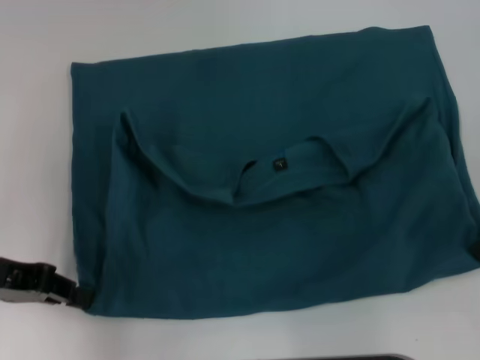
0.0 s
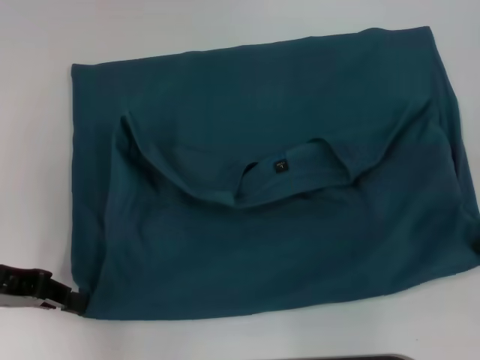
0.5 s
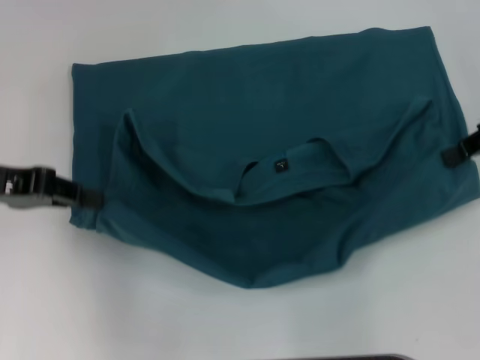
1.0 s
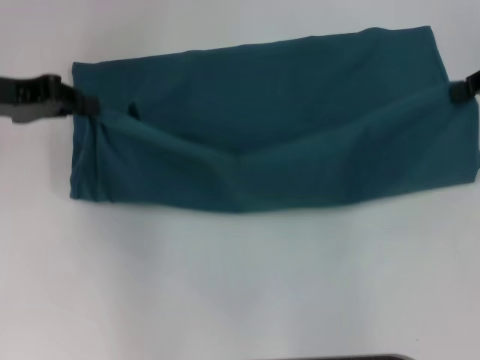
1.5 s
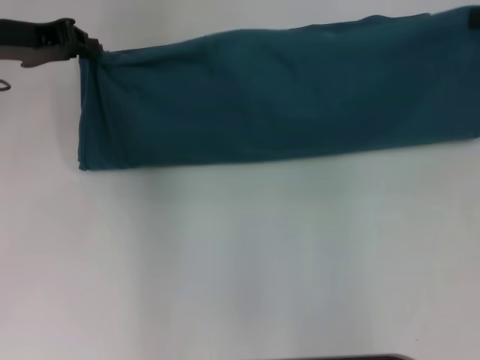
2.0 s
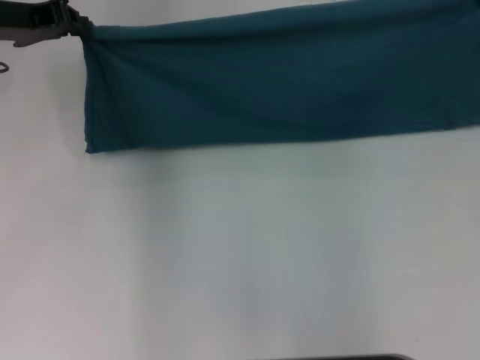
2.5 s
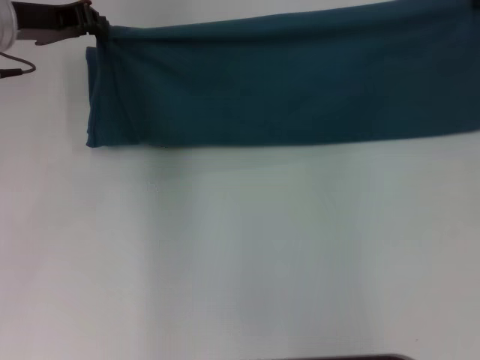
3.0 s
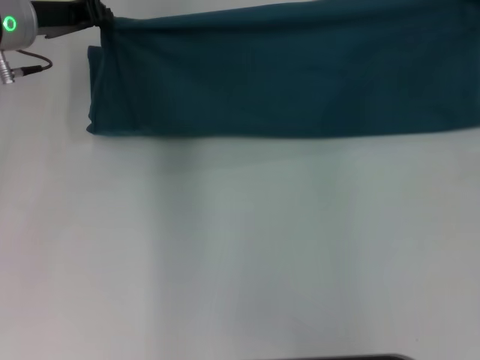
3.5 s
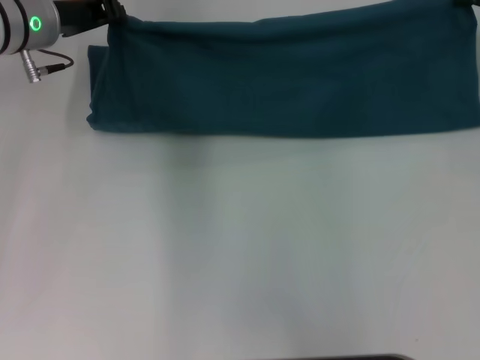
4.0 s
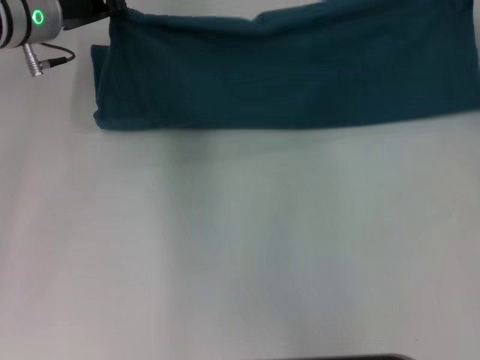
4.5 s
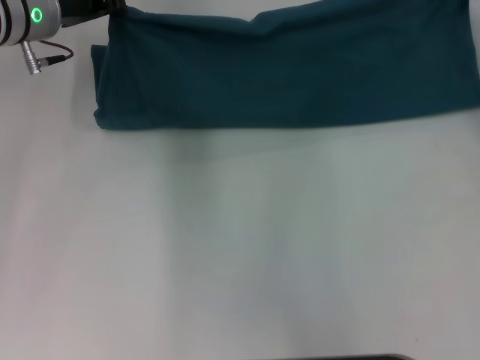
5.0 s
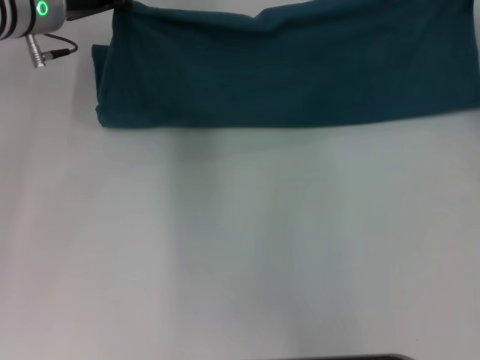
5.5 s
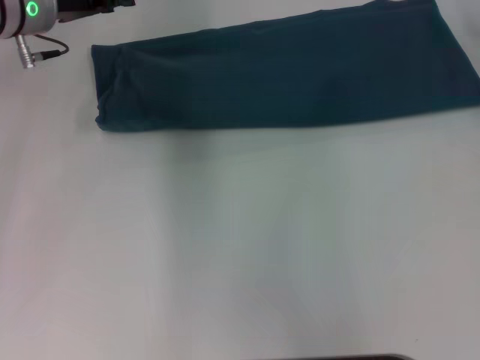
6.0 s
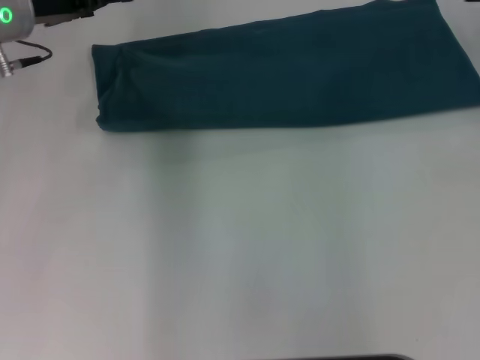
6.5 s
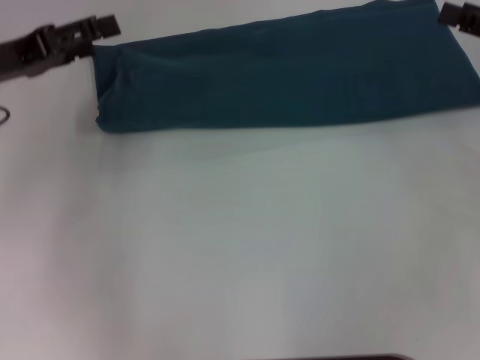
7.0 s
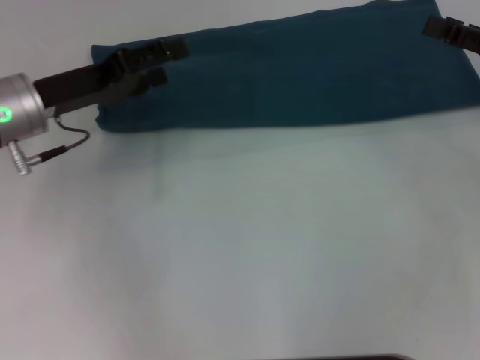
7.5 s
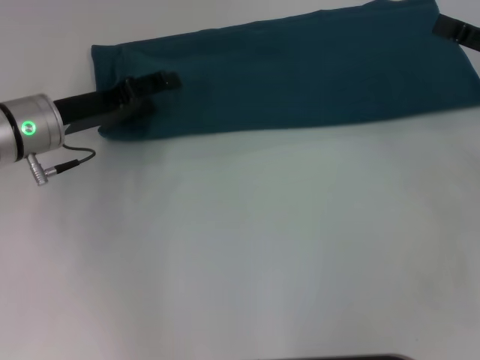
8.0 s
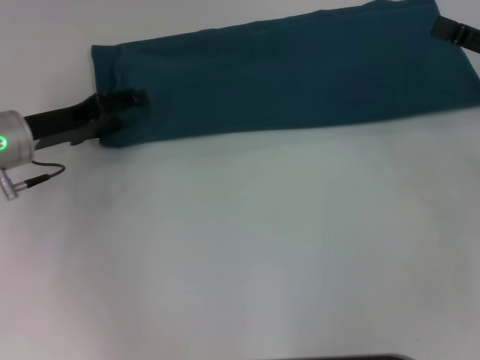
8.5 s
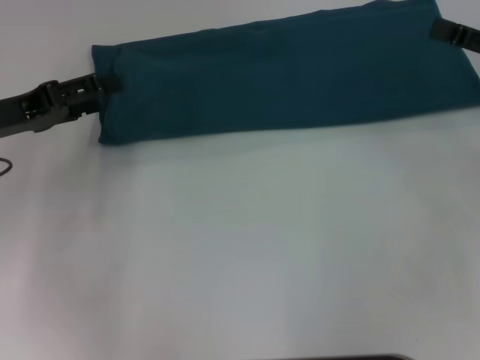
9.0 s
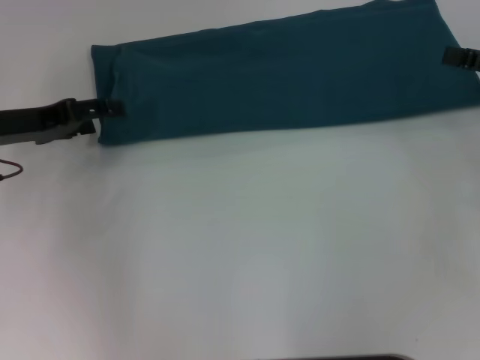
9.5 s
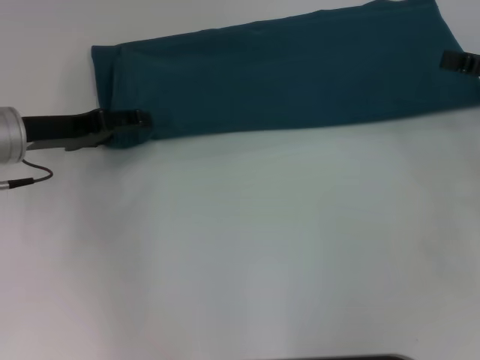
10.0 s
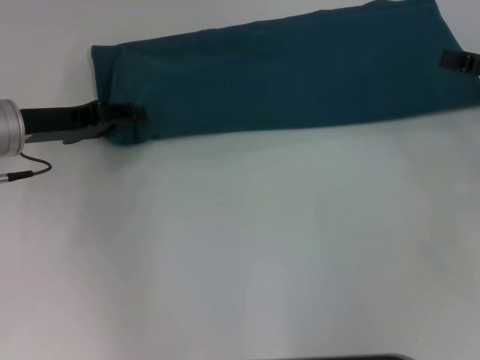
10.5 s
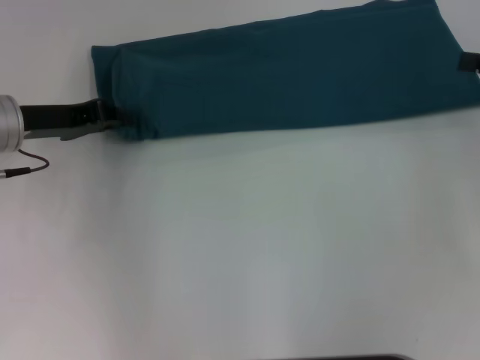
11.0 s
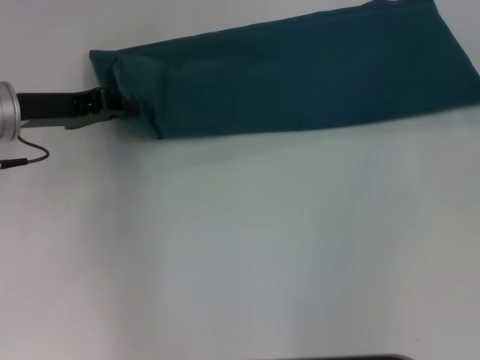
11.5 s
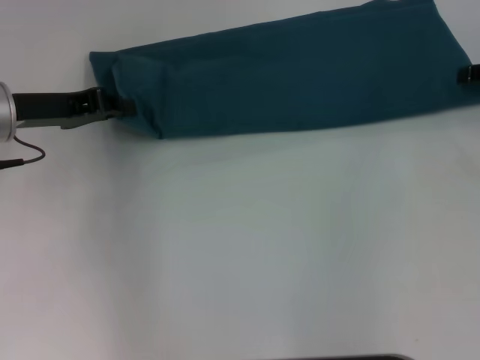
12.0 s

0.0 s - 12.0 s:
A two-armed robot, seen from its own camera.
Step, 0.5 s - 5.5 s: Fold the clothes to the left.
Step, 0.5 s - 5.5 s: Fold the clothes to the right.
0.0 s - 2.0 s: The grippers both shift forward and upward by about 15 cm.
2.0 s - 4.0 s: The right gripper goes some 5 cm downward. Meanwhile the left gripper heads to the right, covering some 5 cm.
4.0 s - 6.0 s: The grippers make only small movements.
6.0 s - 8.0 s: The left gripper is displaced backward and downward by roughly 10 cm, and opens its fingers. Meanwhile the right gripper is displaced backward by approximately 15 cm, and opens.
10.0 s - 12.0 s: The right gripper moves forward, approximately 5 cm. The left gripper closes.

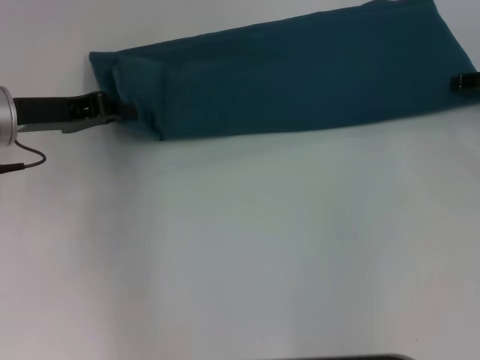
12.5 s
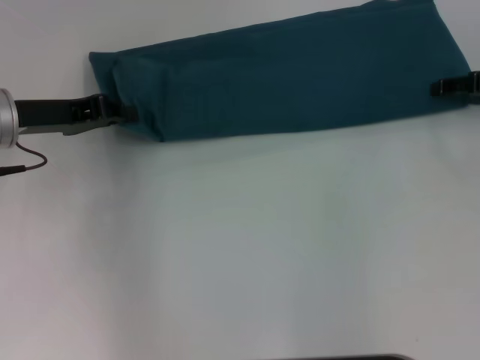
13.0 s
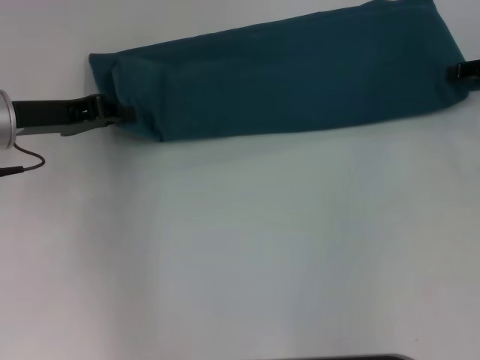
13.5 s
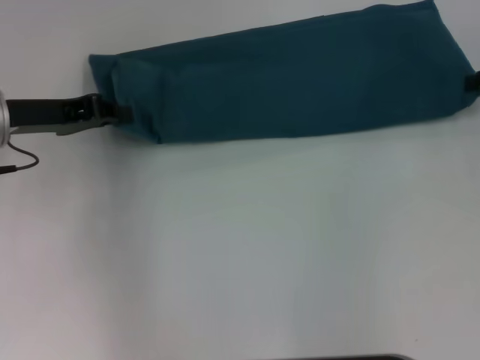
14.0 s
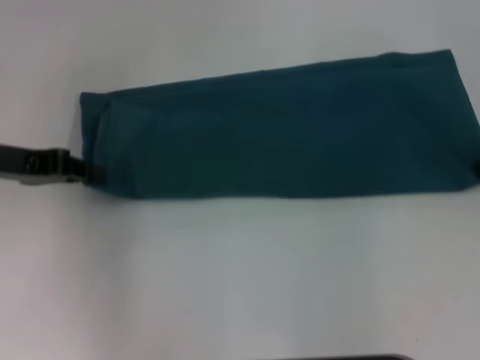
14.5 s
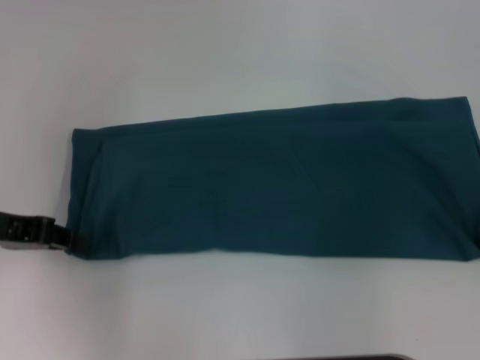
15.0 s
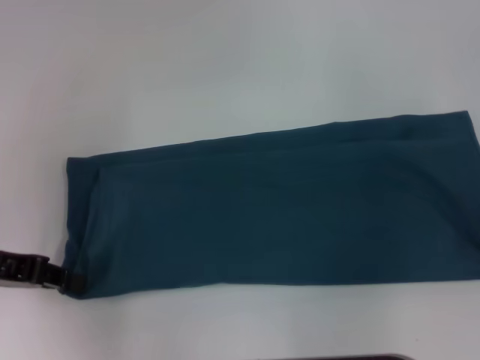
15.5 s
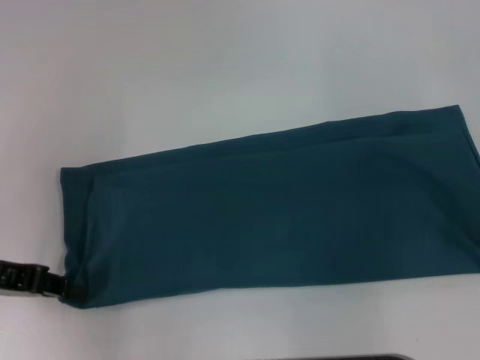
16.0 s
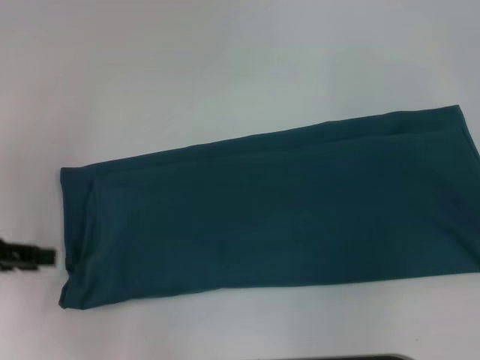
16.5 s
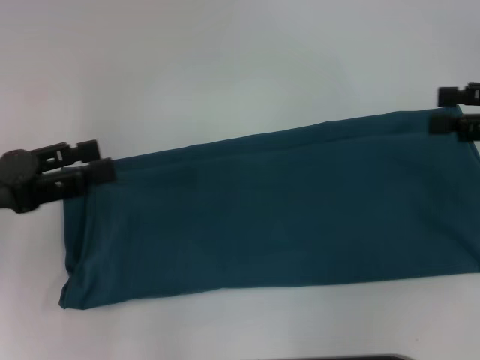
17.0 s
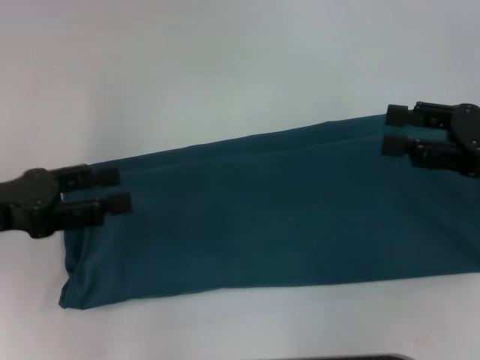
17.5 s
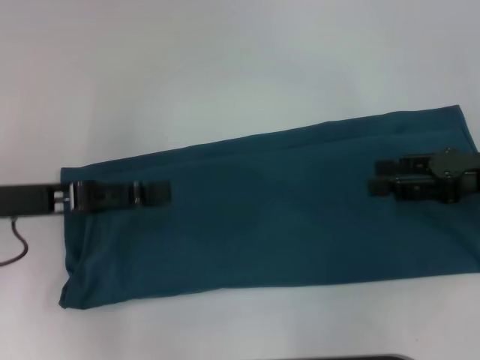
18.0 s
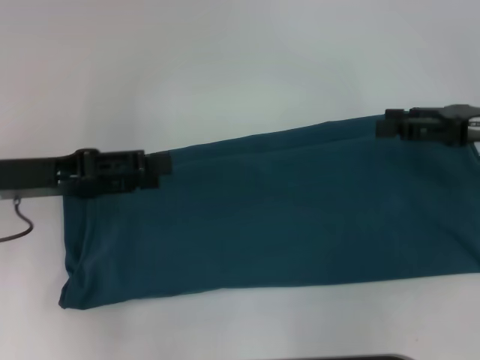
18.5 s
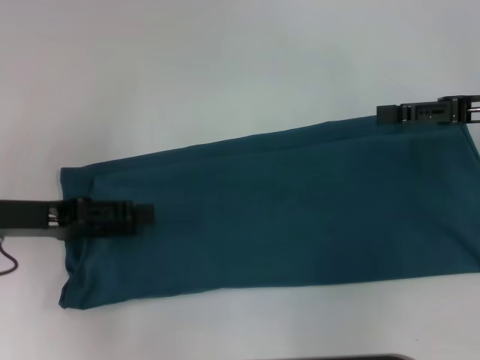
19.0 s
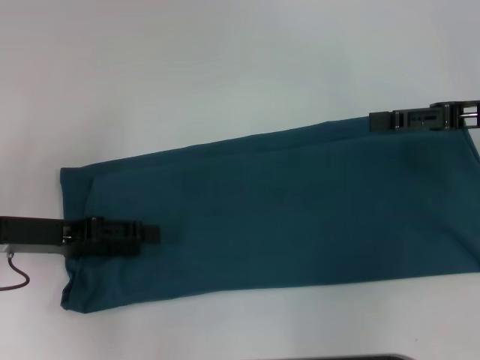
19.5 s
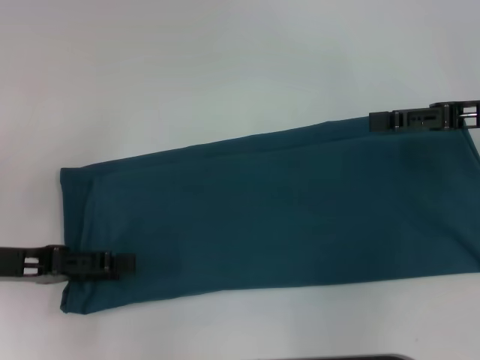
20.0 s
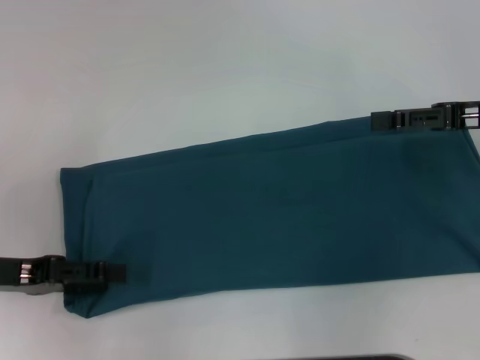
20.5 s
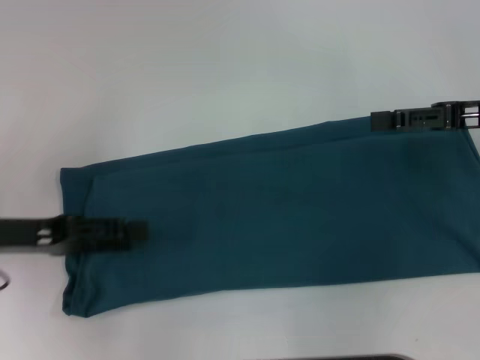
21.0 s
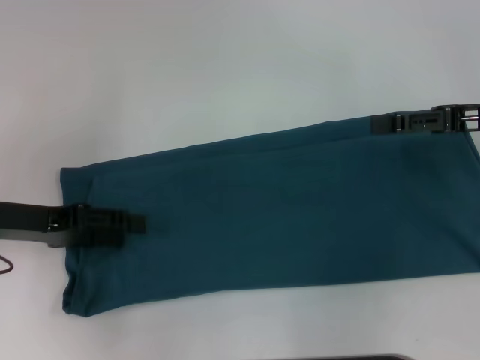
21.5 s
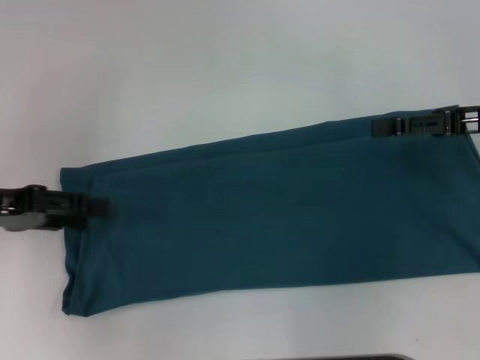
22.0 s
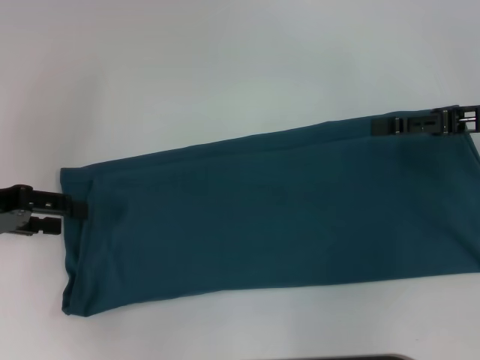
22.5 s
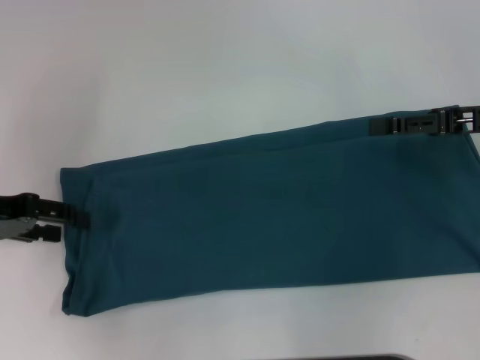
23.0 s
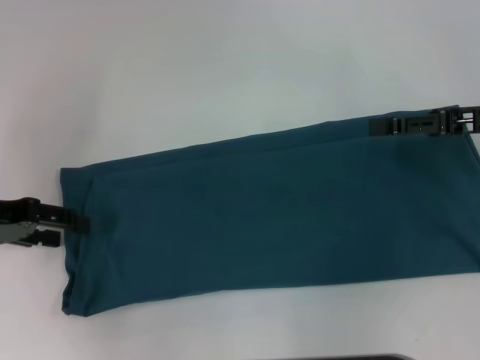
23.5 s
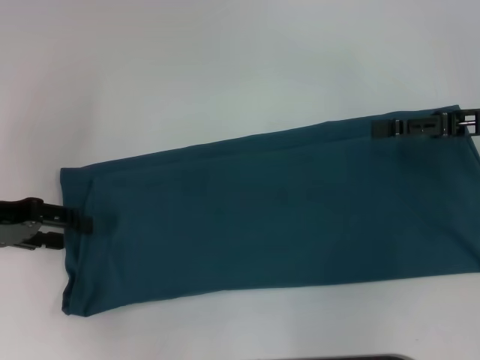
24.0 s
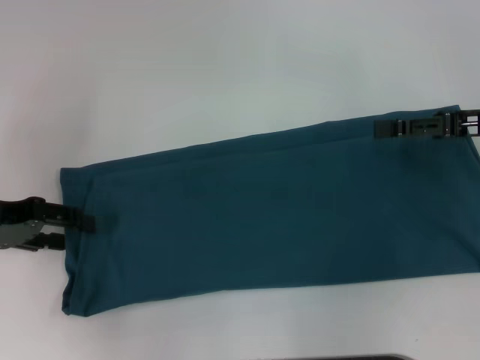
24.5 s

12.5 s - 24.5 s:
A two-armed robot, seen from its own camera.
Step, 12.5 s - 16.0 s: Pull the clothes with your left hand.
Step, 12.5 s - 16.0 s: Pull the clothes with your right hand.
12.5 s - 14.5 s: The right gripper closes; the left gripper shifts by about 5 cm.
14.5 s - 16.5 s: The left gripper moves backward and to the left, roughly 10 cm.
16.5 s - 18.5 s: The right gripper heads to the left, covering about 5 cm, and opens, while the left gripper moves to the right, some 10 cm, and opens.
18.5 s - 20.5 s: The left gripper ends up approximately 10 cm from where it was.
20.5 s - 22.5 s: The left gripper shifts approximately 5 cm forward.
22.5 s - 24.5 s: The grippers make only small movements.

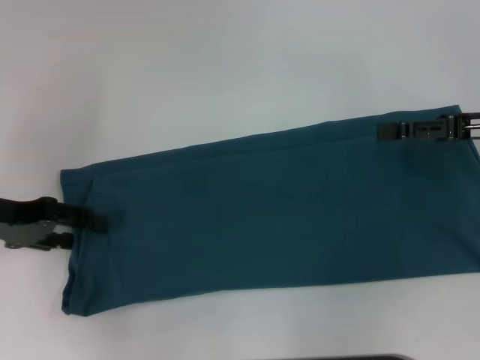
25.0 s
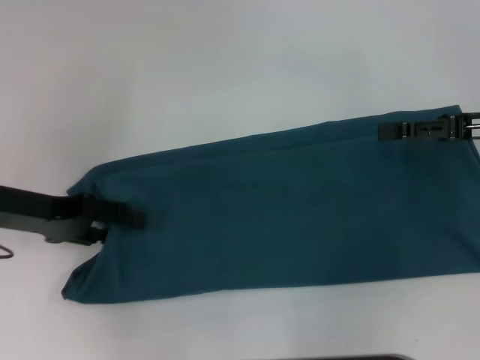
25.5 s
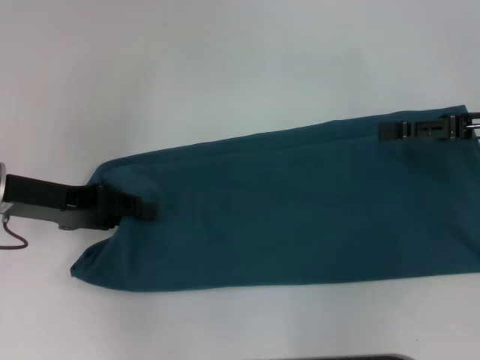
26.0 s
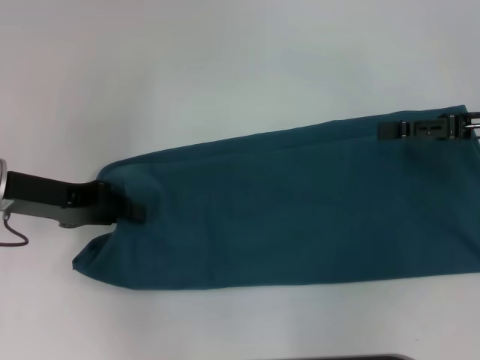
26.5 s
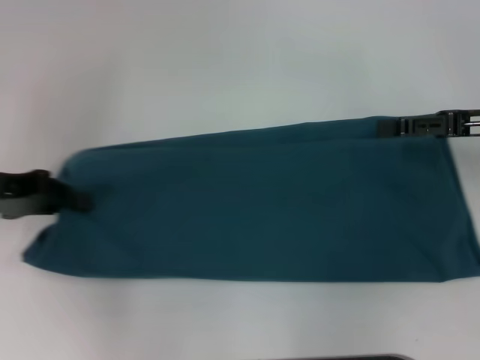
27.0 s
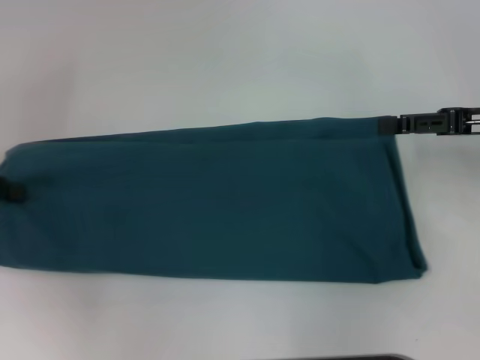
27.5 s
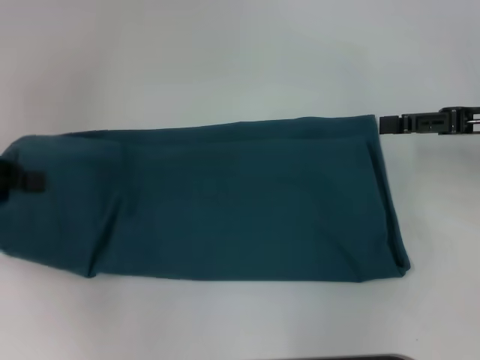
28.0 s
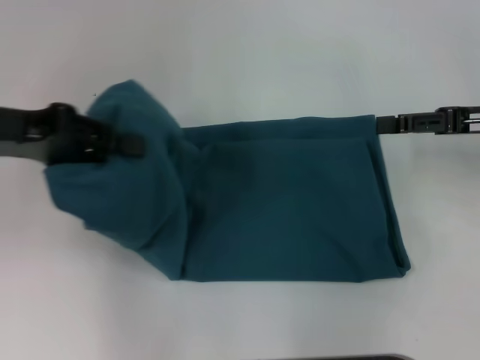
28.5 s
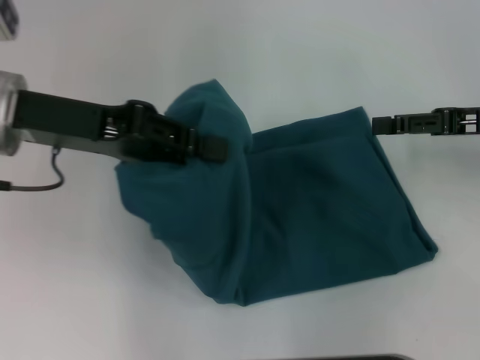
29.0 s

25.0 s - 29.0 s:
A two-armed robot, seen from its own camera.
25.0 s - 27.0 s: The left gripper closes up.
27.0 s - 29.0 s: The left gripper goes approximately 10 cm to the right and upward.
